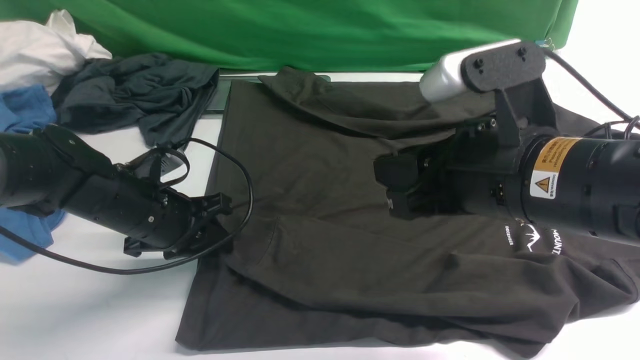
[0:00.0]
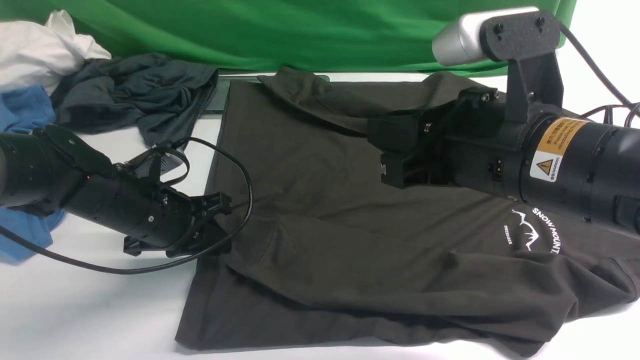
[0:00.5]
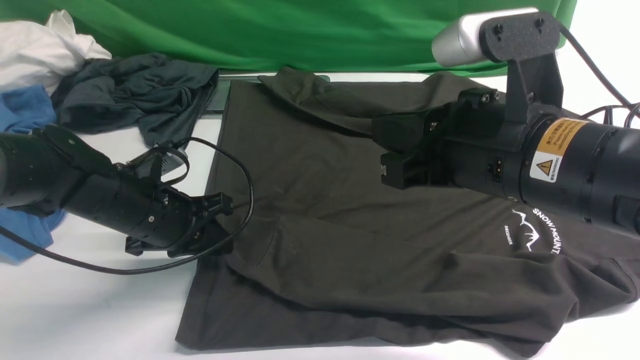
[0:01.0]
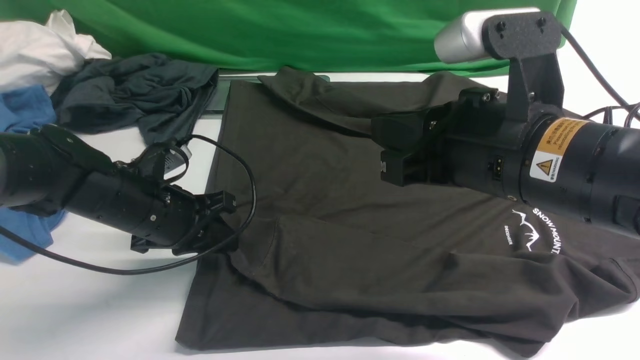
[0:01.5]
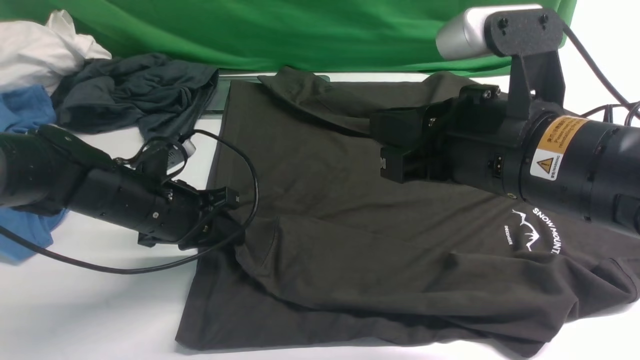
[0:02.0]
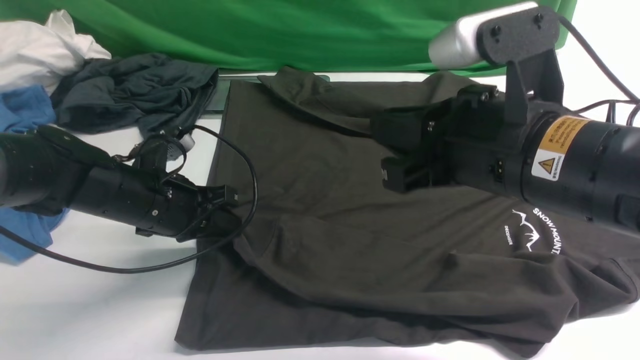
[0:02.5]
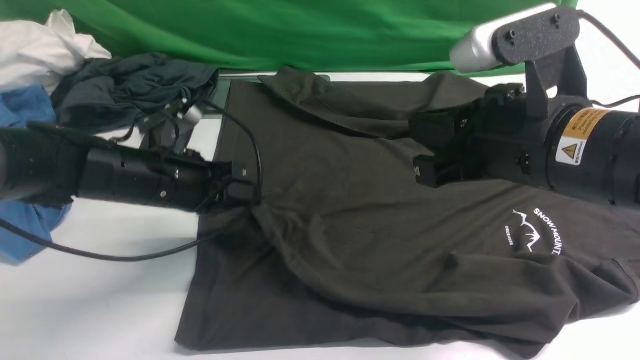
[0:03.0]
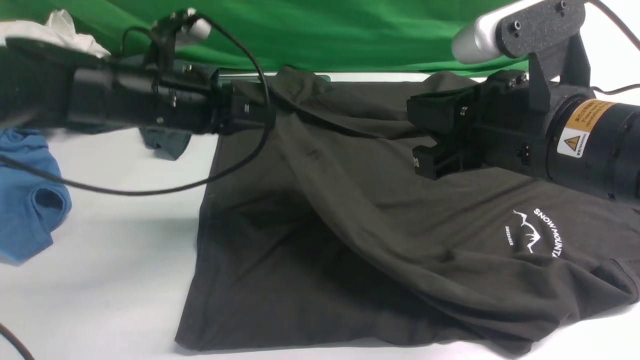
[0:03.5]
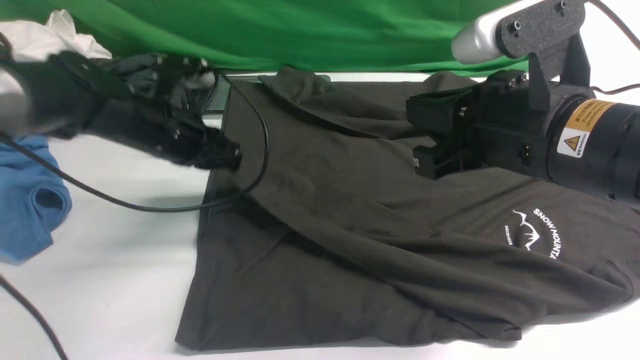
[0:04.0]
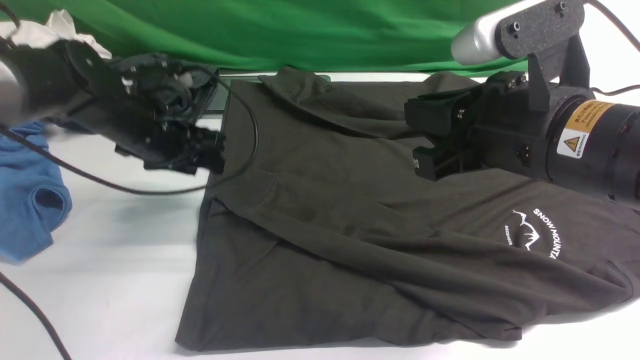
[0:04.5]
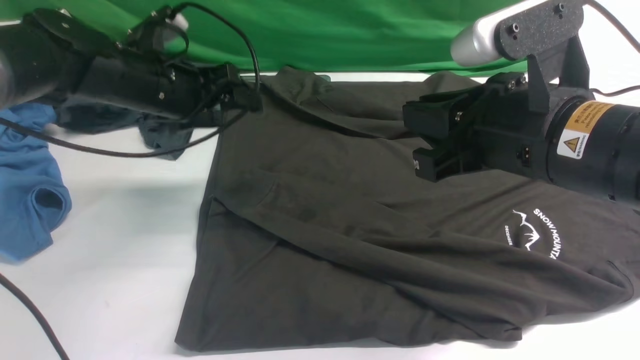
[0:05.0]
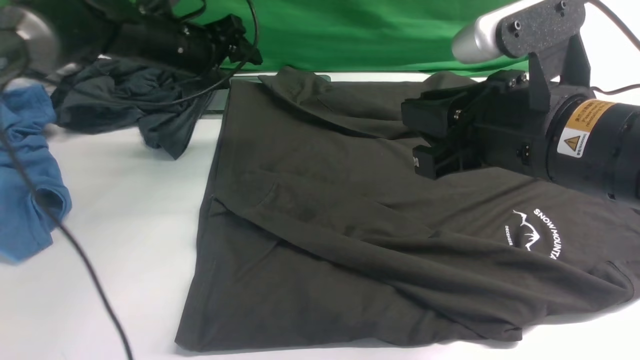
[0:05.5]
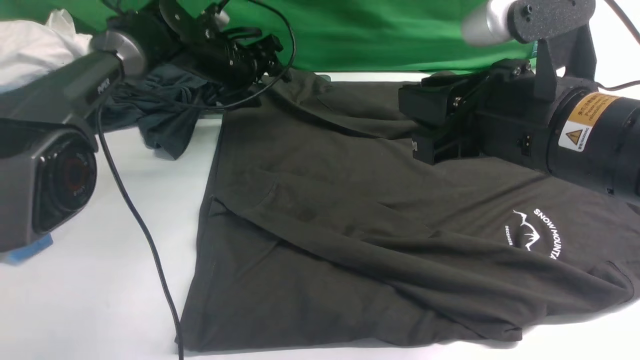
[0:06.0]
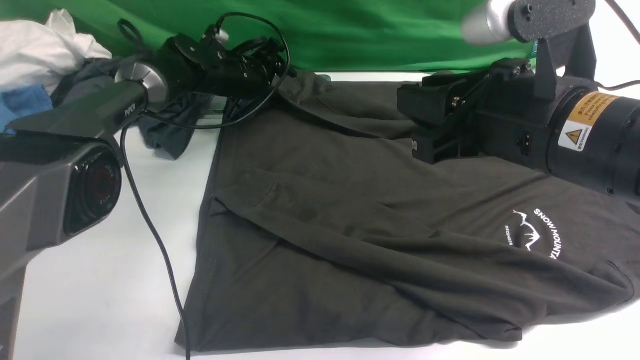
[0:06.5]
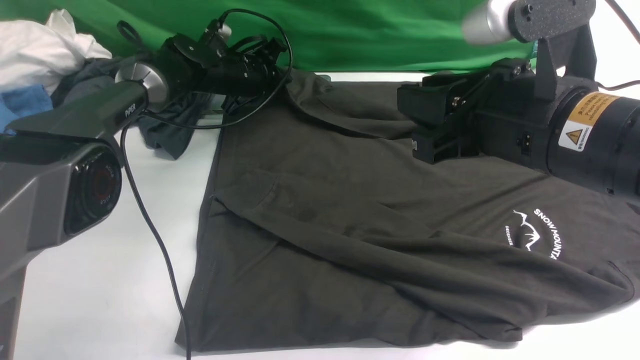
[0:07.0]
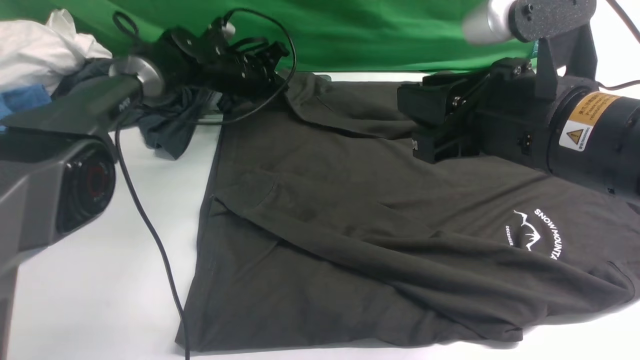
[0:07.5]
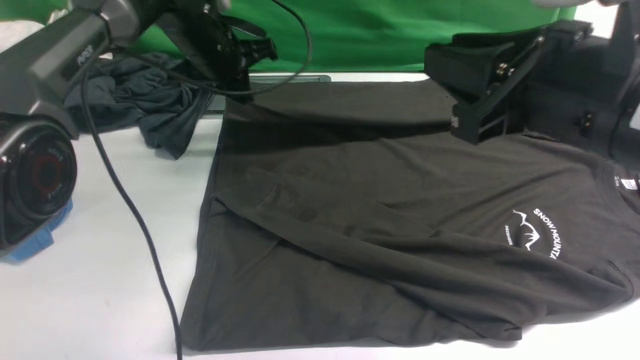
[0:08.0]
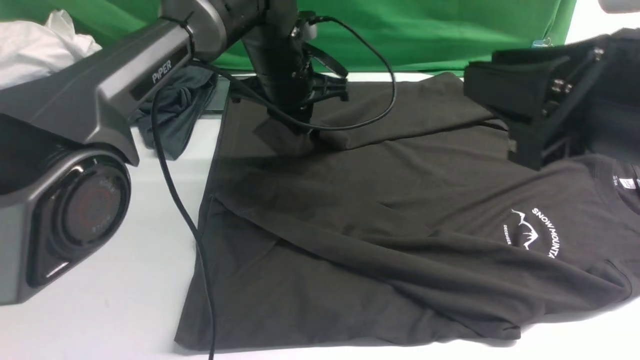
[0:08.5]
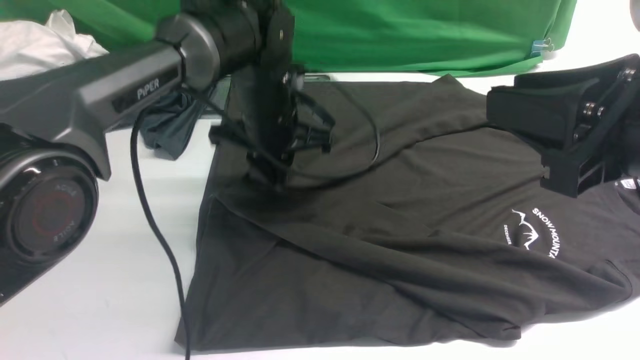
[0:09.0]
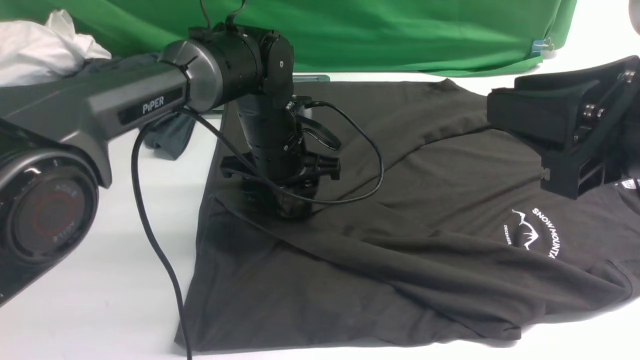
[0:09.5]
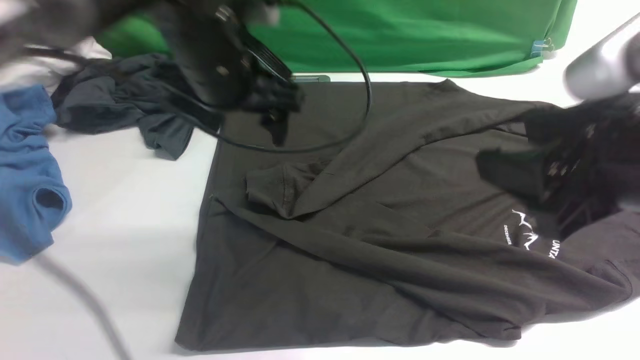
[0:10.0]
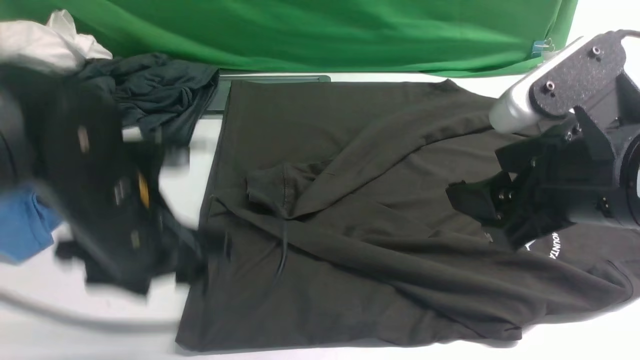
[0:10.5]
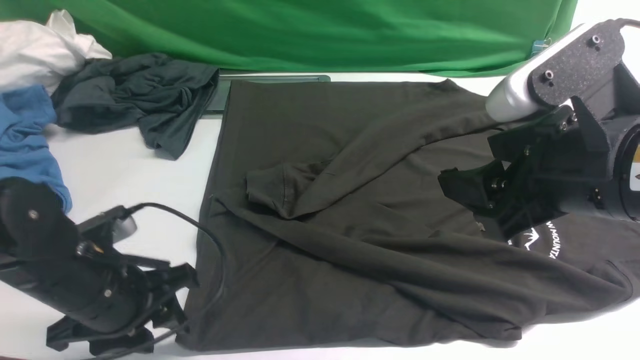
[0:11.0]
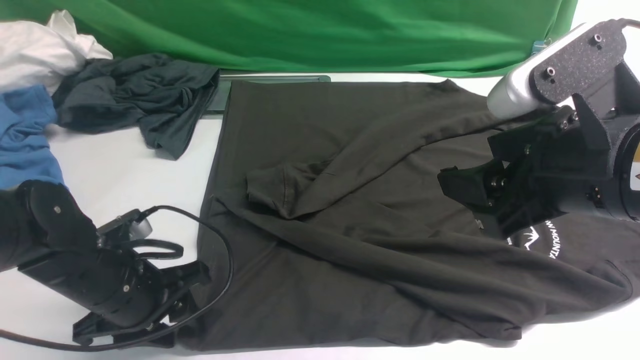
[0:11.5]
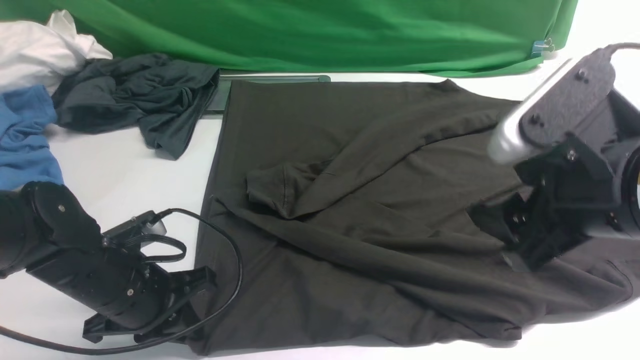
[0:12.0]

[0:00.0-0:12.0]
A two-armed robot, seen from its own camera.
Step, 0:00.0 to 0:02.5: use the left arm to clamp the cuff closest to it.
Step, 0:03.0 to 0:04.5: use the left arm to drag and place the cuff at the centered position on the left edge of the fabric.
Step, 0:05.0 to 0:07.5: use the left arm to clamp the cuff farthest from it.
Step, 0:08.0 to 0:09.5: use the left arm to drag and drop the cuff onto the cuff closest to the left arm.
0:00.0 to 0:02.0: The grippers move only a little.
0:02.0 to 0:04.0: The left gripper shifts approximately 10 cm forward.
0:04.0 to 0:06.0: The left gripper shifts roughly 15 cm forward, and opens up.
0:06.0 to 0:08.0: The left gripper is displaced upward by about 5 cm, and closes its fingers.
0:08.0 to 0:10.0: The right gripper opens. Meanwhile the left gripper goes some 15 cm backward and upward, and opens up.
0:10.0 to 0:12.0: The left gripper heads downward, backward and to the left, covering some 20 cm, and closes its fingers.

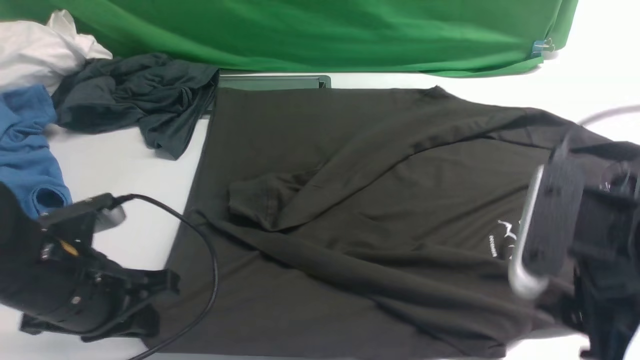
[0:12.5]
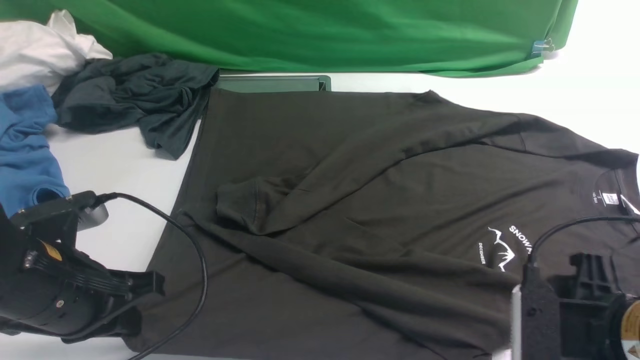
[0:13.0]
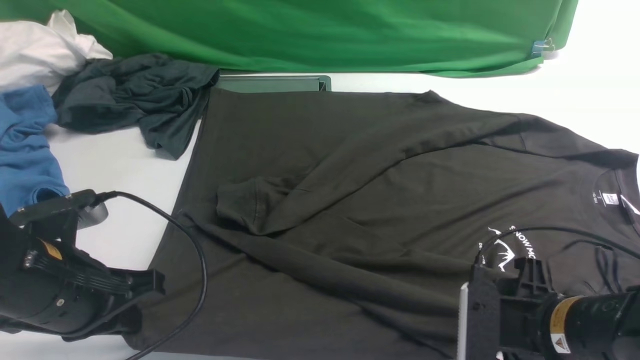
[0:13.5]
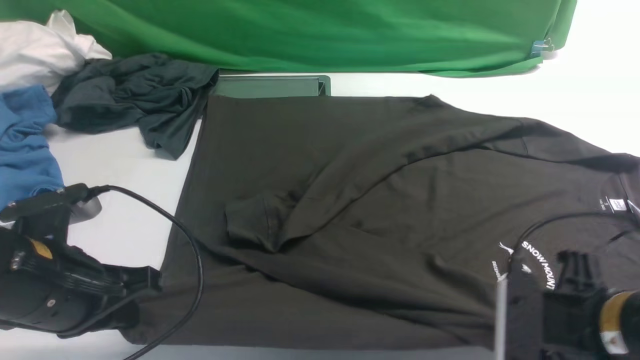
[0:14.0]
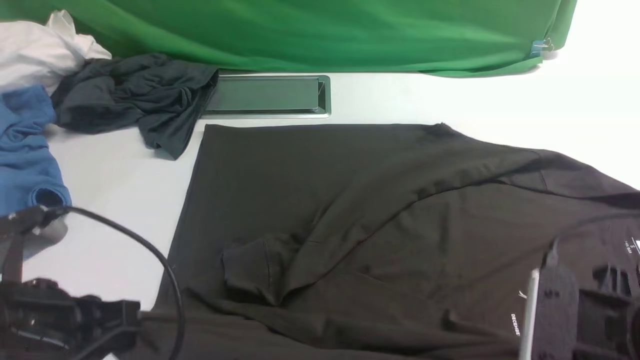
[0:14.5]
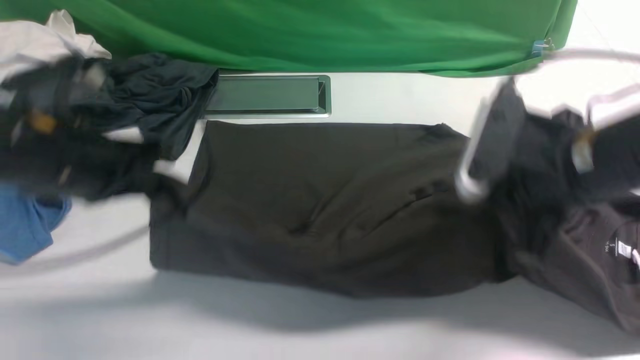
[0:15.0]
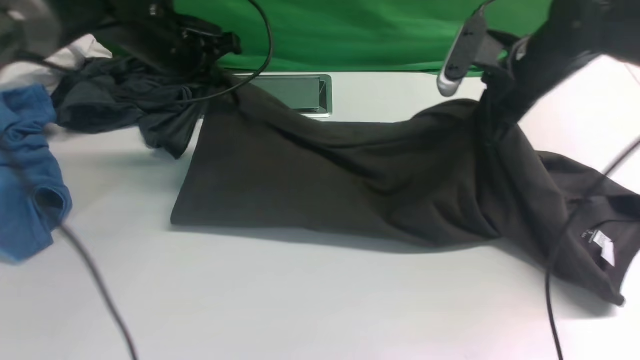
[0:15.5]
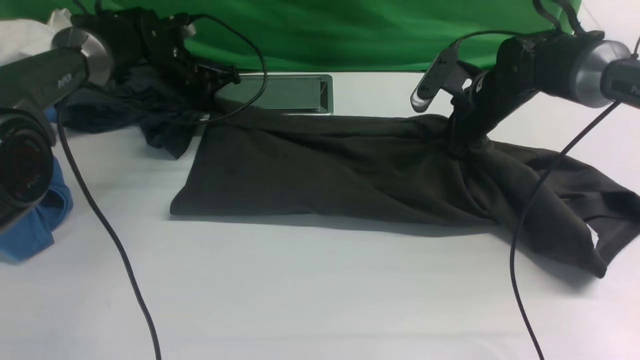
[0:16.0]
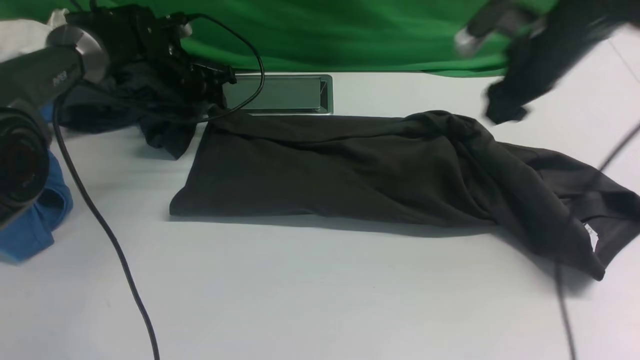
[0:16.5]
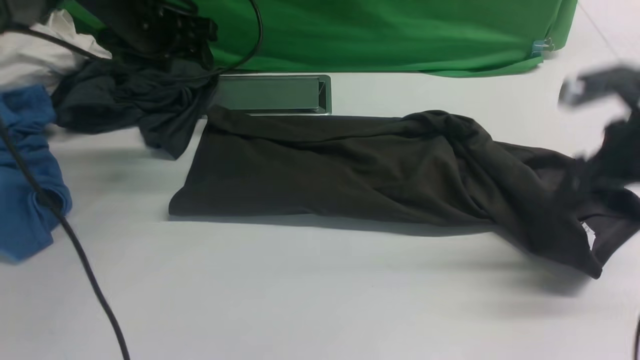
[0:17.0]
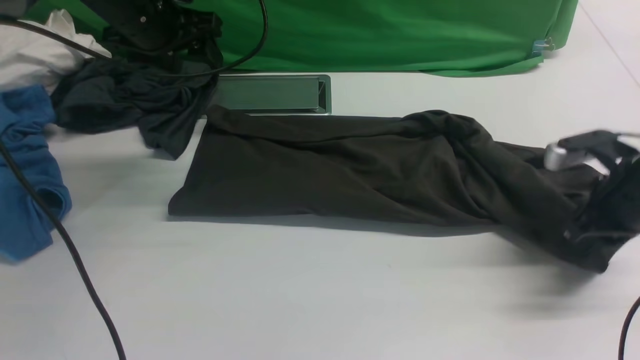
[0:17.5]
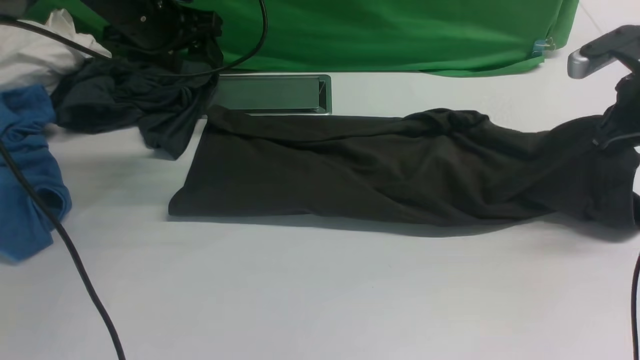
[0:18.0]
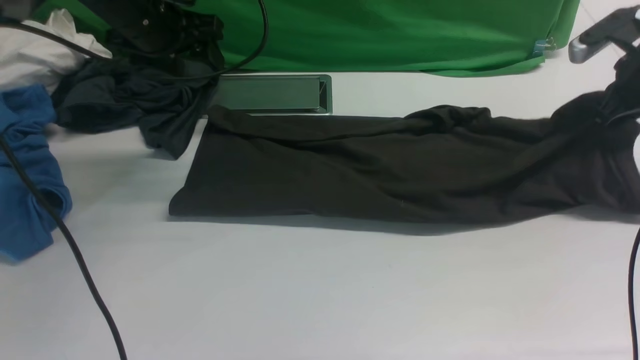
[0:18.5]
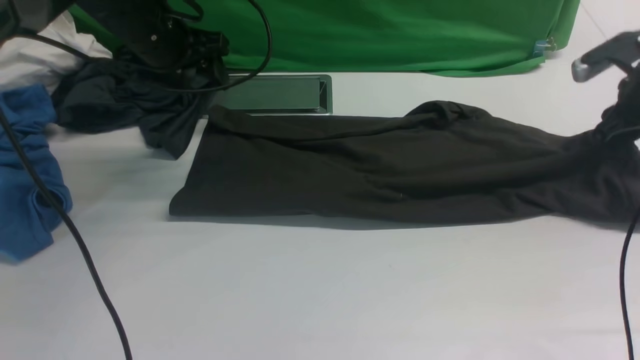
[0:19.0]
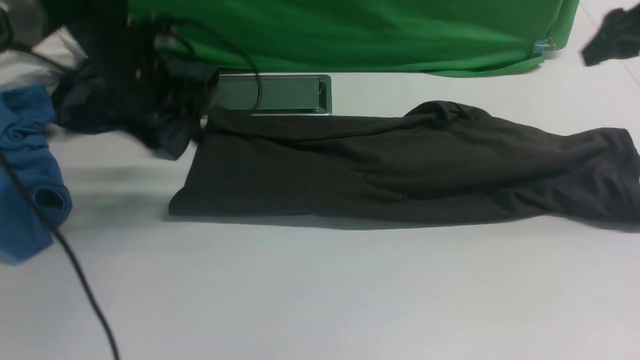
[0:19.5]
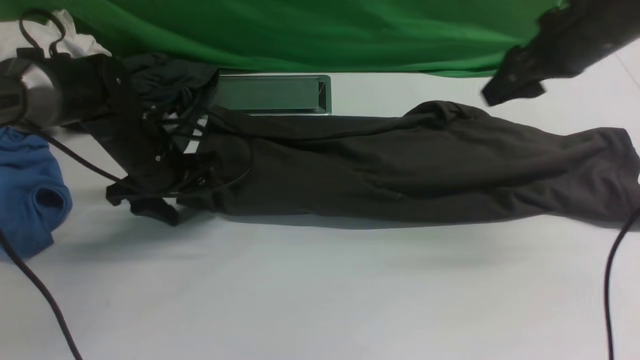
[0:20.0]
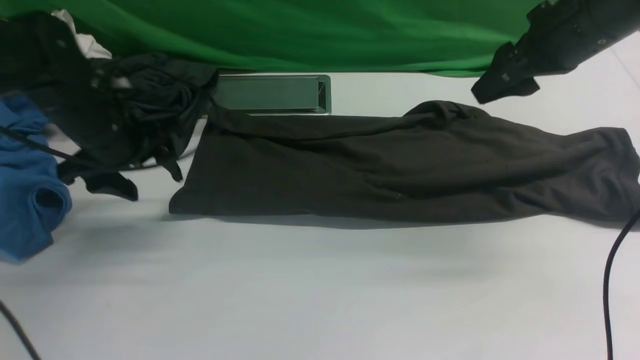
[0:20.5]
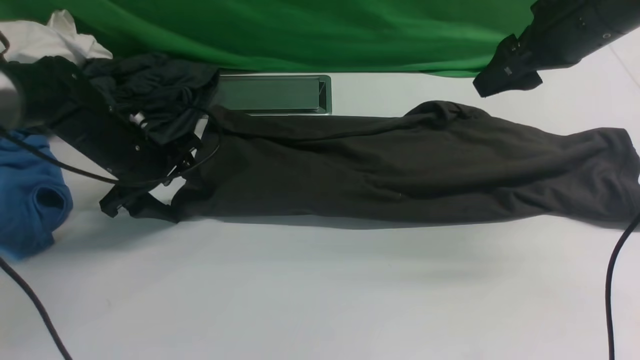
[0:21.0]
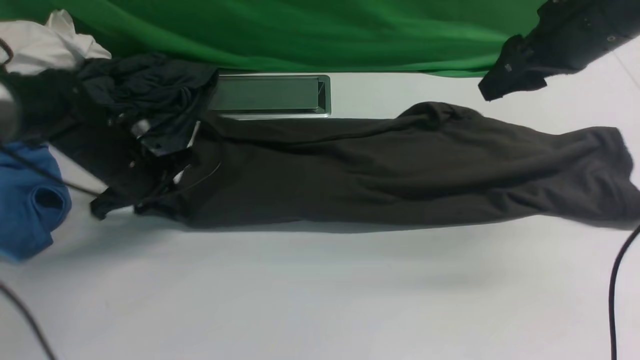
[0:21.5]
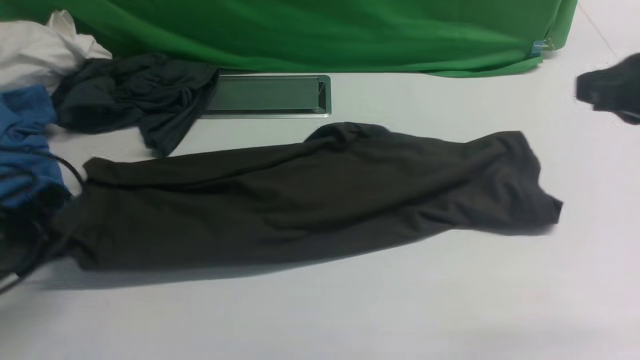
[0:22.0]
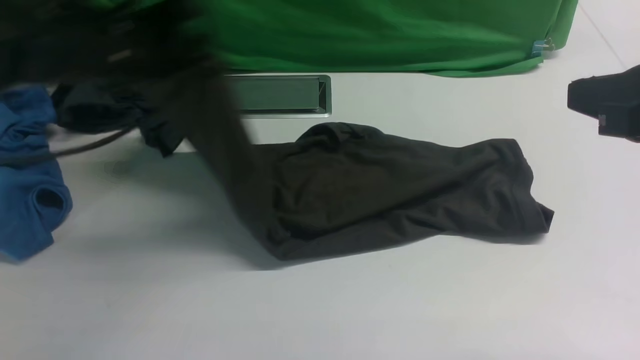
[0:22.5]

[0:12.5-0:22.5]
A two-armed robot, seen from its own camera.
Step, 0:14.5 to 0:19.0: use both arms to drag the lower edge of the fabric forward and fold it over the upper edge.
Step, 0:19.5 to 0:22.0: Hold the left edge of the fabric with your left arm.
0:12.5 to 0:14.5: The left gripper shifts approximately 5 cm backward, while the right gripper moves some 10 cm downward and comes back, and closes.
0:14.5 to 0:16.5: Both grippers move forward, some 30 cm. The right gripper opens its fingers, while the left gripper opens.
0:16.5 to 0:18.5: The right gripper travels to the right by approximately 10 cm, reaches some 10 cm backward, then returns, and closes. The left gripper is displaced upward by about 10 cm.
0:18.5 to 0:20.5: The left gripper shifts about 10 cm downward and backward, while the right gripper heads to the left, upward and backward, covering some 15 cm, and opens its fingers.
0:20.5 to 0:22.5: The right gripper shifts roughly 20 cm backward, and closes. Meanwhile the left gripper is displaced upward and to the right by roughly 15 cm, and closes.
